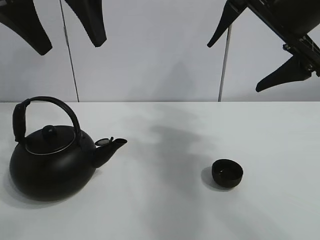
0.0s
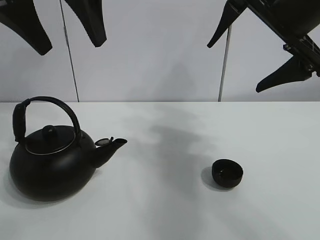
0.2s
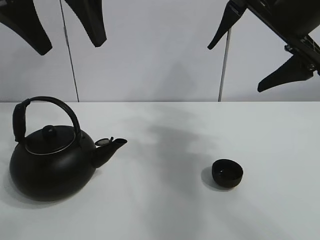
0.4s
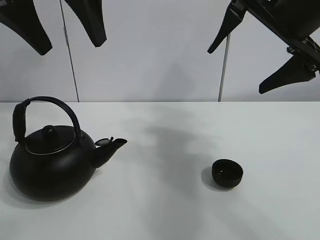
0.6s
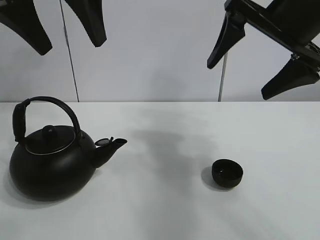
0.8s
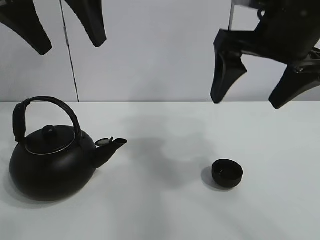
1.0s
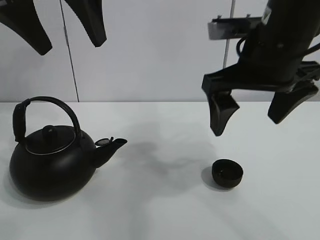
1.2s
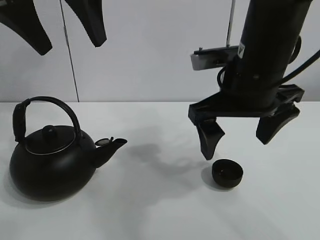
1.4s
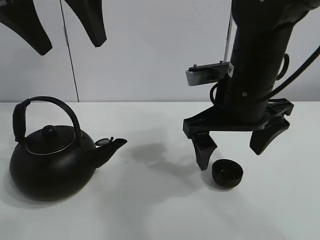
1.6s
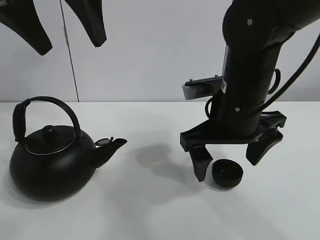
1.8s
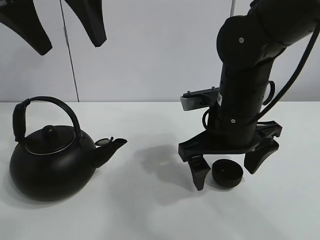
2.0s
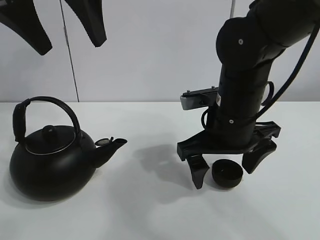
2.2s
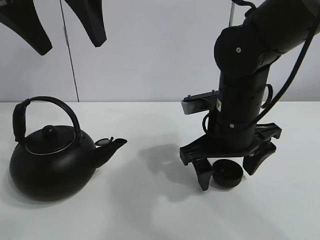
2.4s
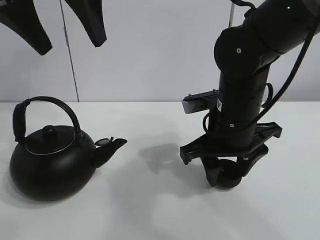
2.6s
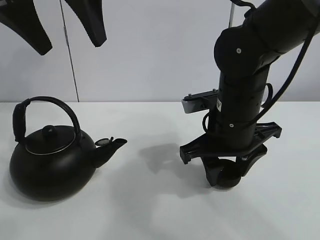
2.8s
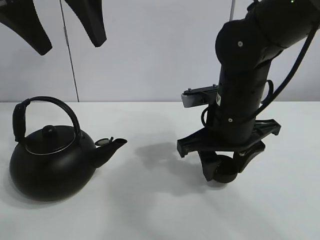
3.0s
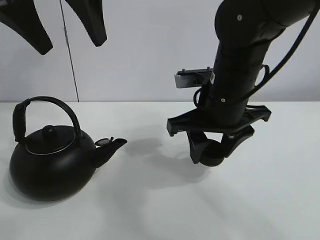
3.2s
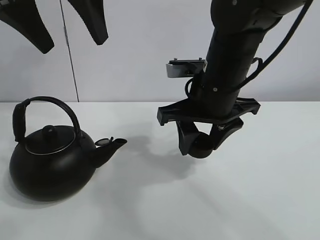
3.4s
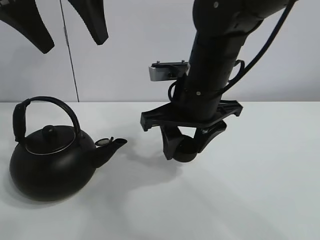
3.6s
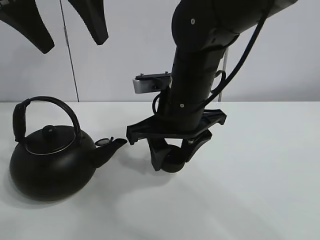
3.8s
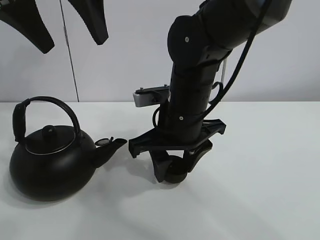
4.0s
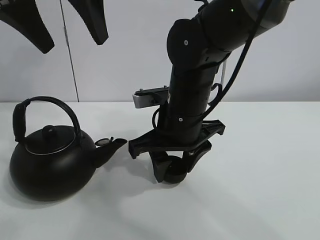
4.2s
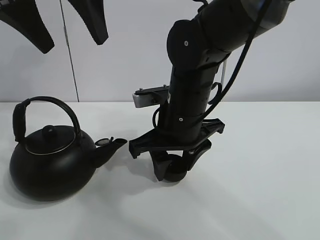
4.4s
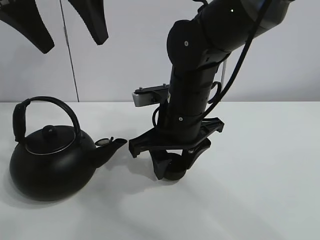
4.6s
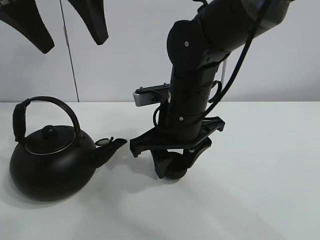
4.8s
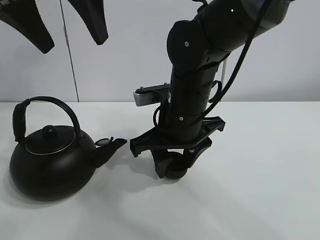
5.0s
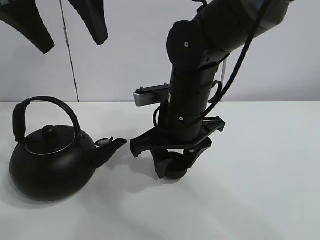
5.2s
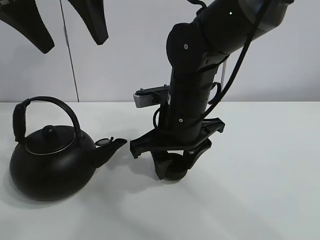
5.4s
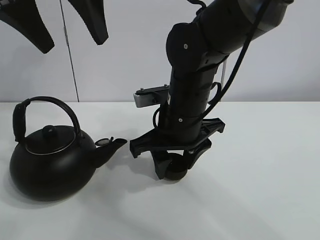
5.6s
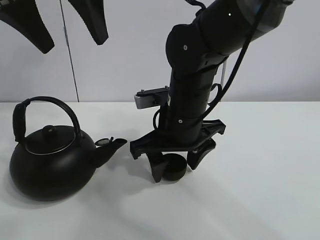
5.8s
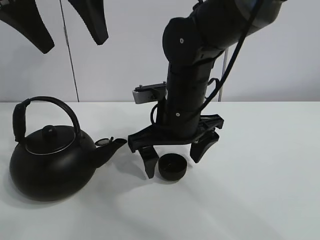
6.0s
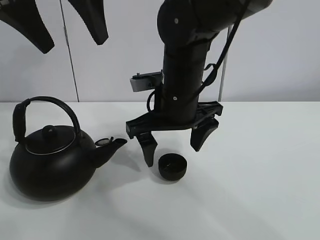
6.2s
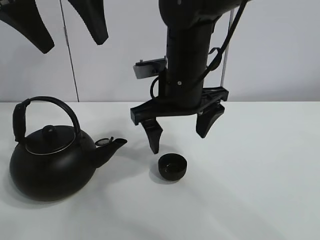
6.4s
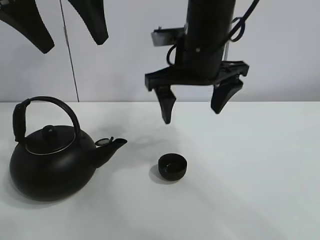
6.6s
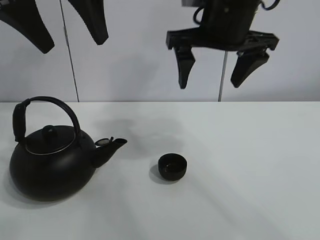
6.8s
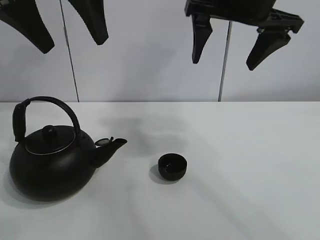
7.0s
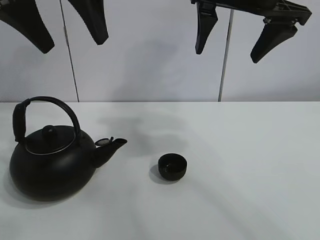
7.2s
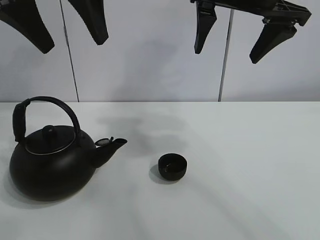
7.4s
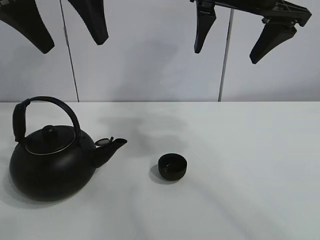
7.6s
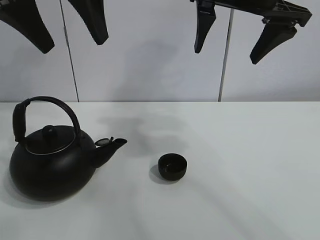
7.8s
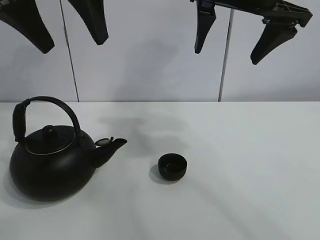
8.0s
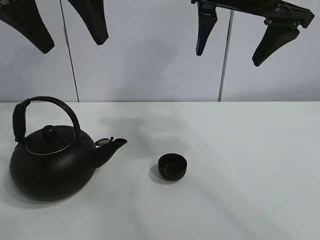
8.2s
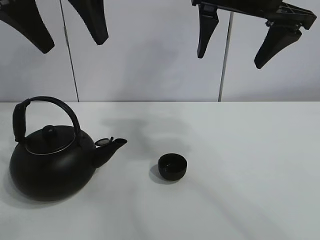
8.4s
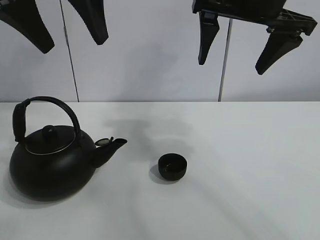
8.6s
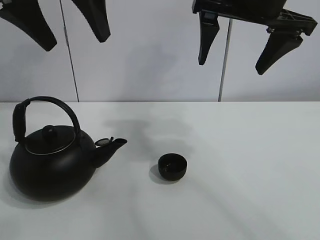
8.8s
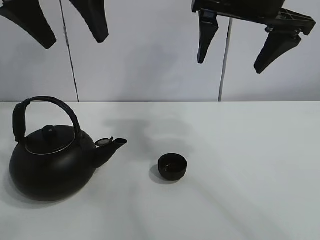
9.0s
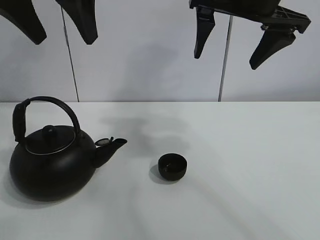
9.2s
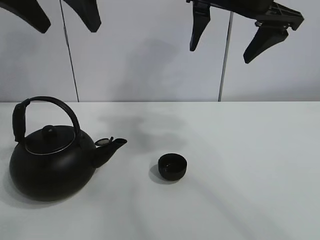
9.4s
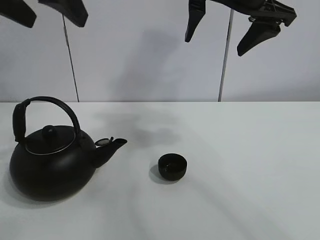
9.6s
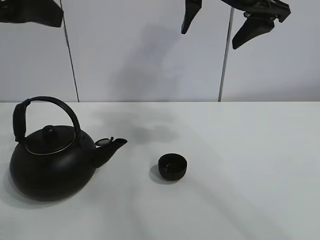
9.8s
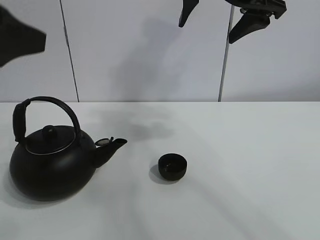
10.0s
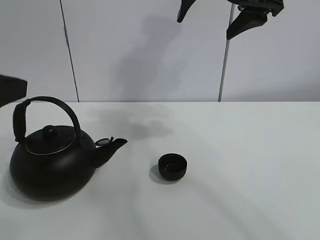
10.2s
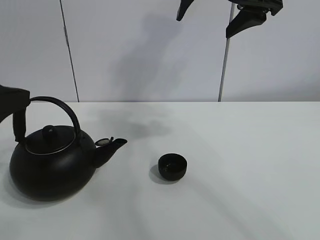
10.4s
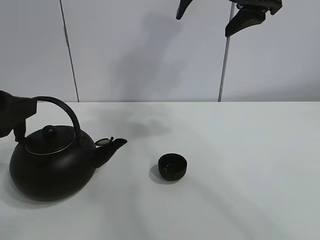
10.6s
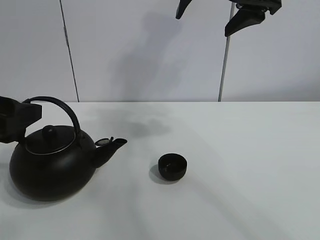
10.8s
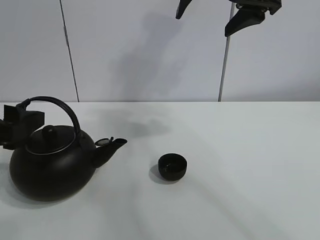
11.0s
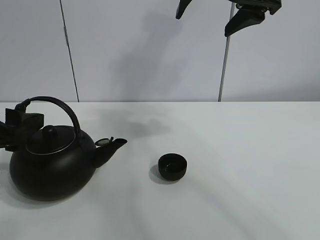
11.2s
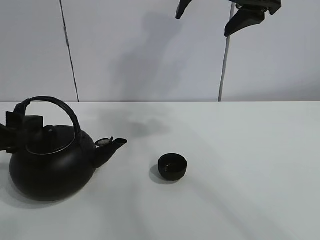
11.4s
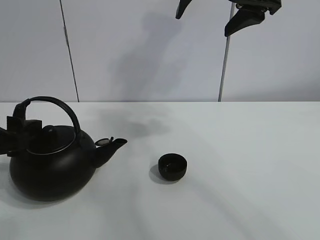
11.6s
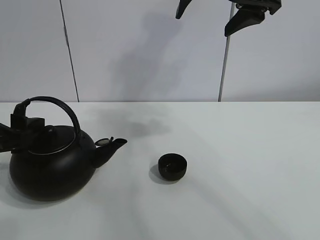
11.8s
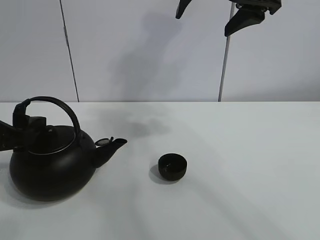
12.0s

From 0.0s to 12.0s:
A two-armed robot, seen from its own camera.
Task of the whole recording: pour tea into the teacup.
Step, from 0.0s to 2.6s: Pick up the teacup with the right gripper.
Step, from 2.8s to 5.8s: Place the teacup in the center of view with the right gripper.
From 1.6s to 3.0s: The right gripper closes its fingers.
From 3.0s to 4.4s: The right gripper moves to the left, approximately 5 cm.
From 4.4s to 6.0s: The right gripper opens.
From 6.0s to 7.6s: The right gripper goes approximately 20 cm upward and to the right.
From 7.6s to 9.0s: Both grippers stay put.
From 9.0s to 10.4s: The left gripper shifts roughly 20 cm downward, backward and to the left.
From 10.4s to 12.0s: The left gripper moves downward, about 10 cm.

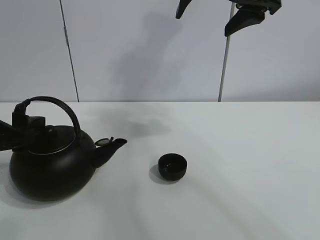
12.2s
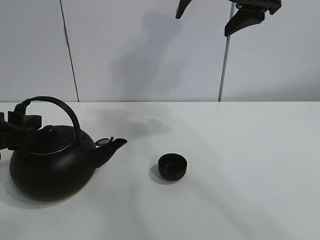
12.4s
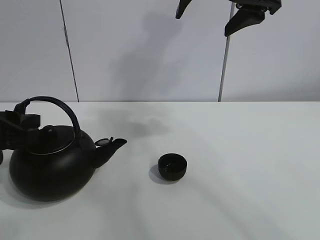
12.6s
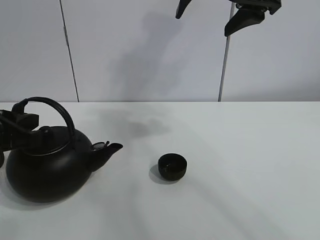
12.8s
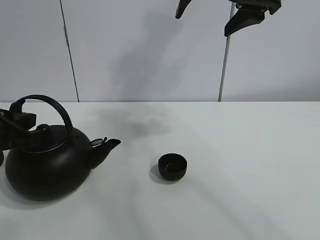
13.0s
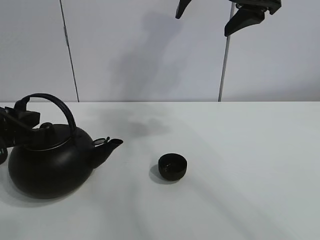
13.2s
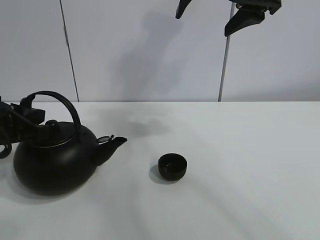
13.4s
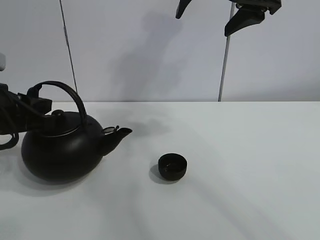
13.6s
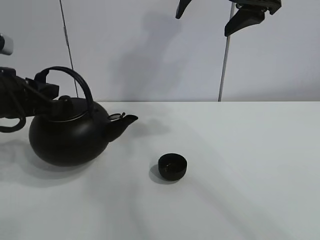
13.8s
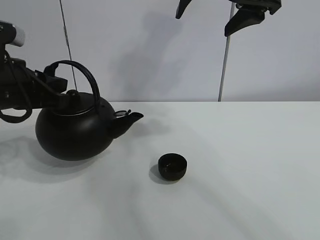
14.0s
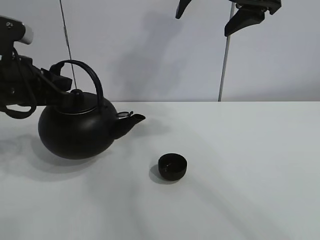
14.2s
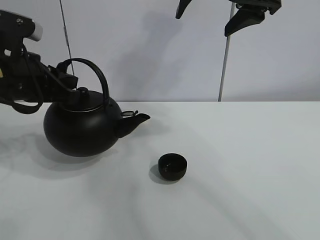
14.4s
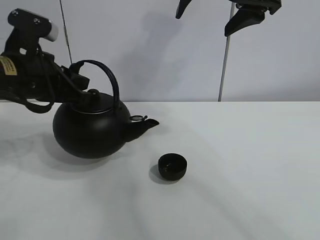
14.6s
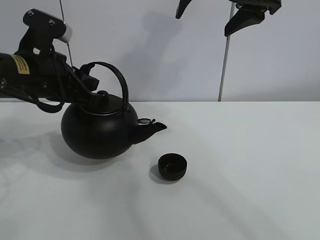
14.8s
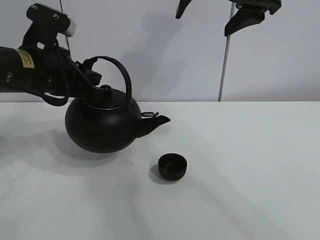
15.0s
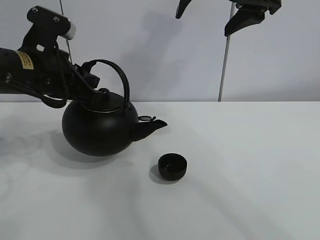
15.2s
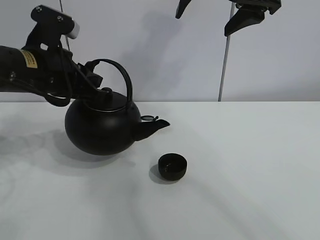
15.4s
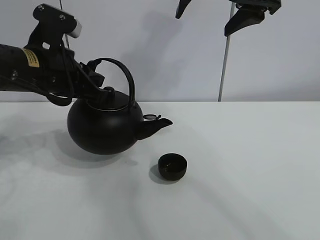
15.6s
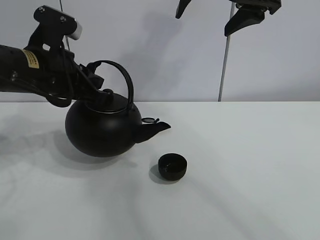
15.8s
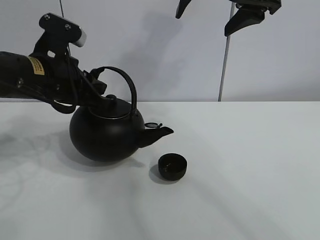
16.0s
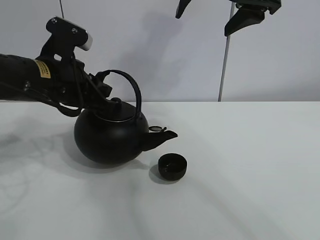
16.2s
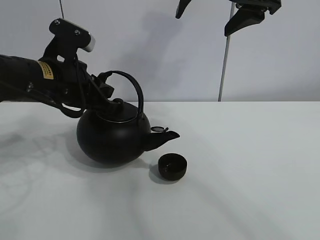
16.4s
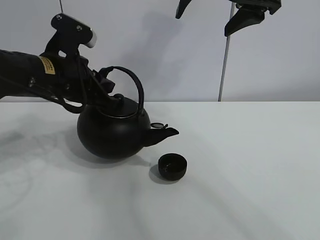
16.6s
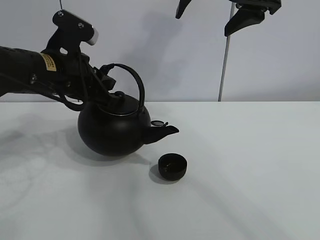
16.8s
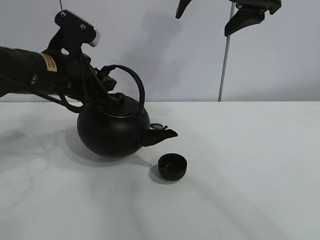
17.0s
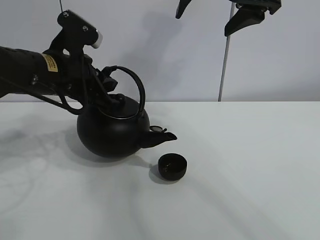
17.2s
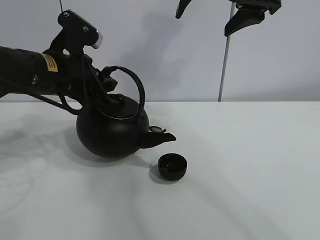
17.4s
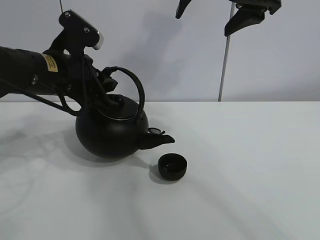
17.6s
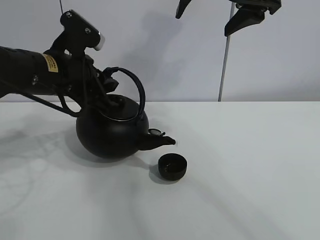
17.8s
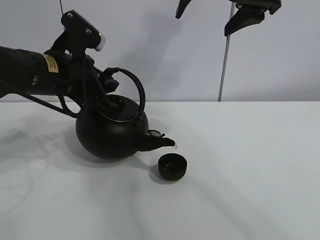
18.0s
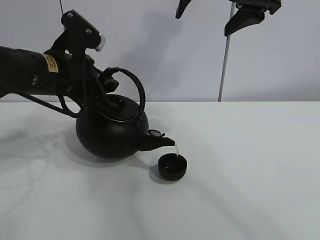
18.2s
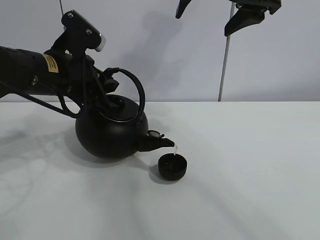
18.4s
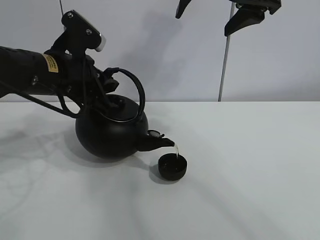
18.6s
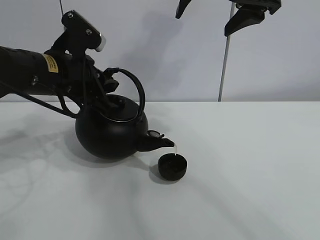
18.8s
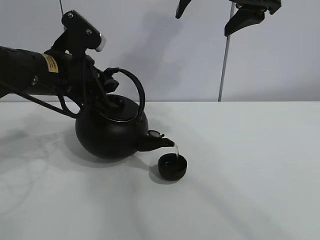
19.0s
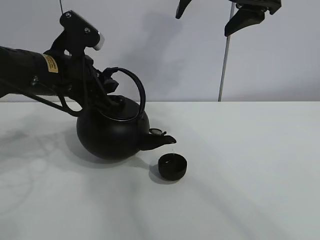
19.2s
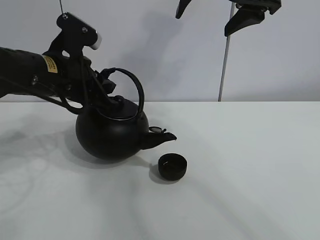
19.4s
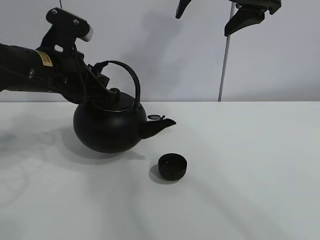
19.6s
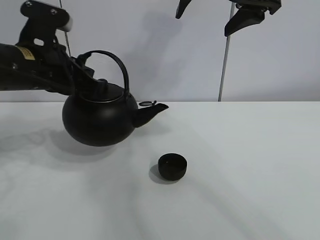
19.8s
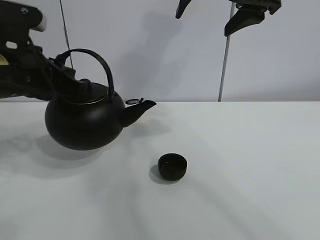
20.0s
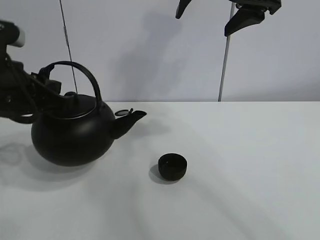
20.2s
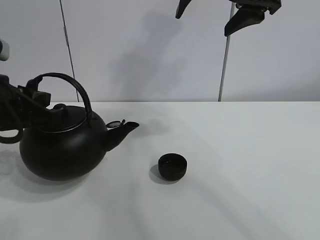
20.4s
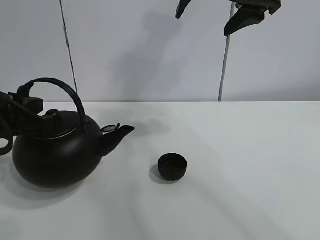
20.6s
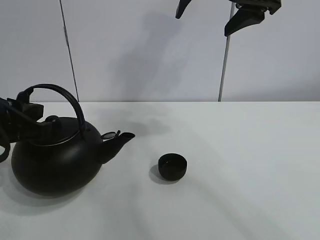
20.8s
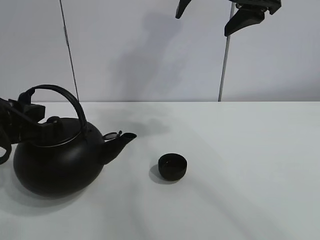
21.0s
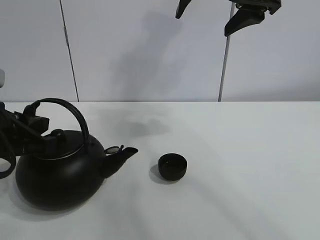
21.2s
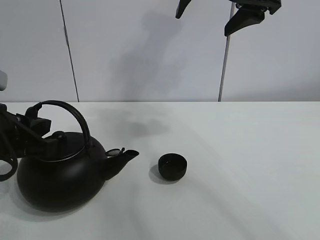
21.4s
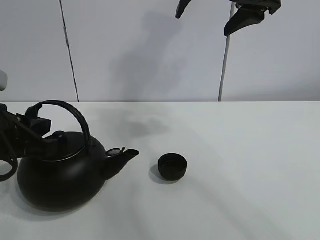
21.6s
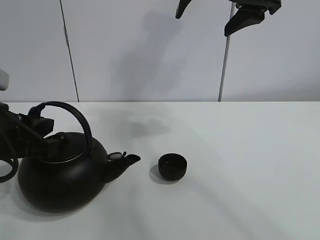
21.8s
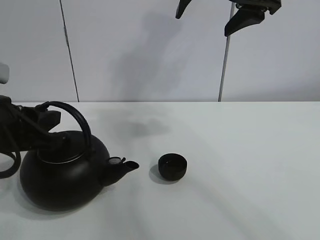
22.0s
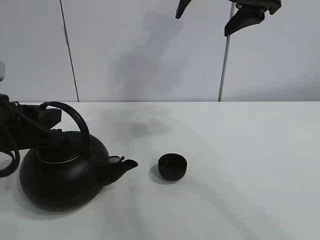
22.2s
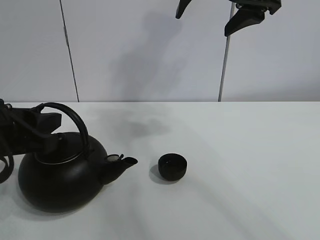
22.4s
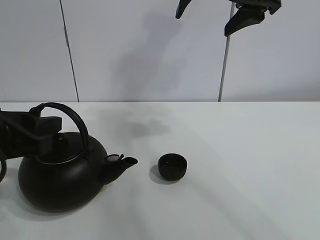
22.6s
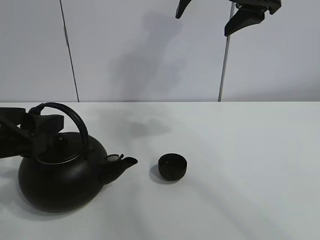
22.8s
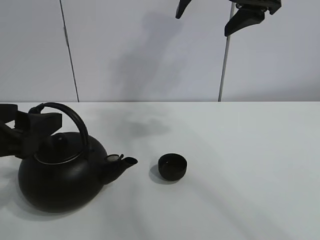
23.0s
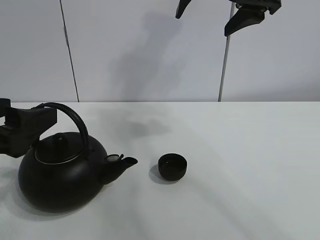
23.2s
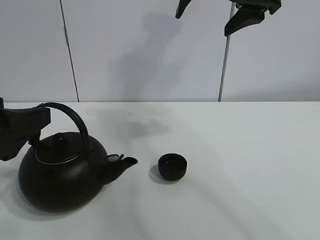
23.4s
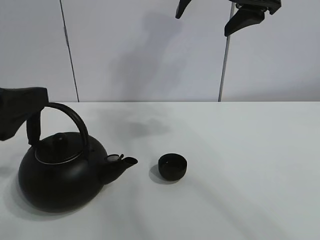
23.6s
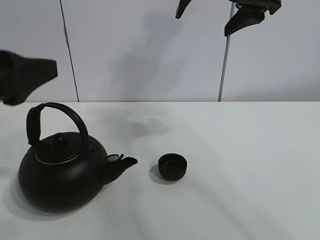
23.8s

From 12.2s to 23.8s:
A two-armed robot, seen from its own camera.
Task of the whole recording: pour tea into the teacup.
Step, from 13.4s to 19.4s: Pour tea into the teacup with the left gripper.
From 12.2s to 13.6s: The left gripper closes up.
From 13.6s to 15.0s: The left gripper goes roughly 10 cm to the right and forward.
From 15.0s to 19.4s: The grippers move only a little.
From 19.4s to 21.0s: The left gripper is displaced backward and to the left by roughly 15 cm.
From 21.0s to 22.4s: The left gripper opens up.
From 22.4s to 23.8s: The left gripper travels upward by roughly 5 cm, and opens up.
